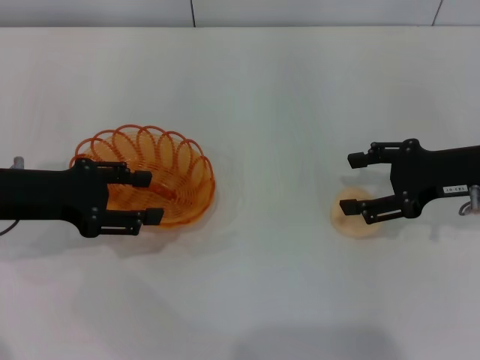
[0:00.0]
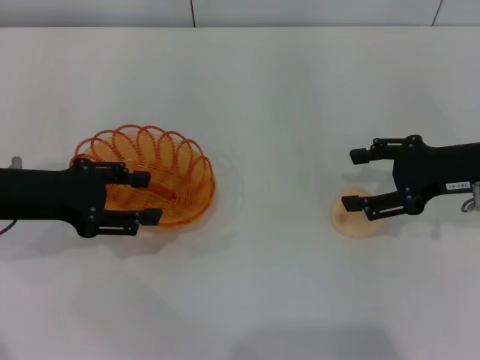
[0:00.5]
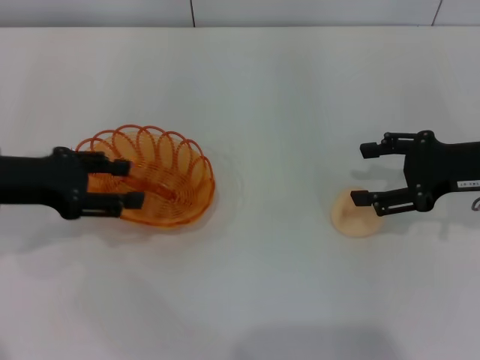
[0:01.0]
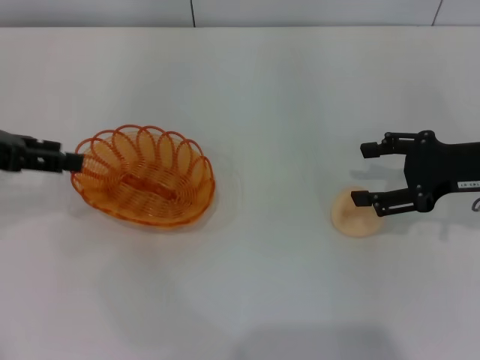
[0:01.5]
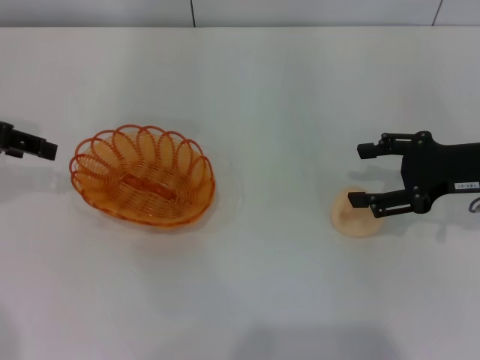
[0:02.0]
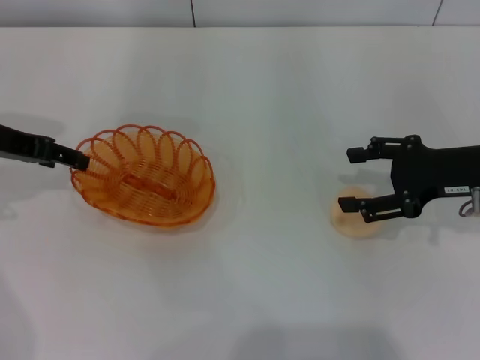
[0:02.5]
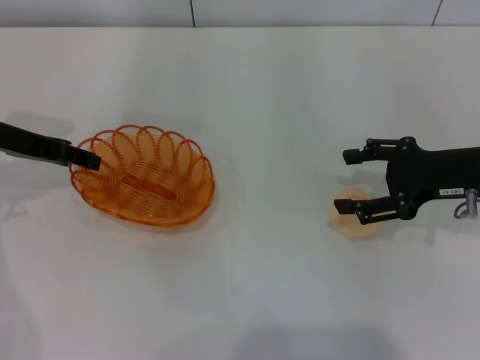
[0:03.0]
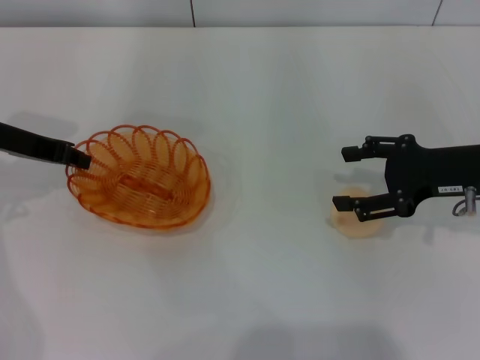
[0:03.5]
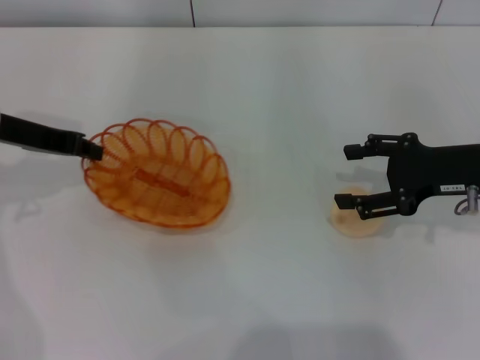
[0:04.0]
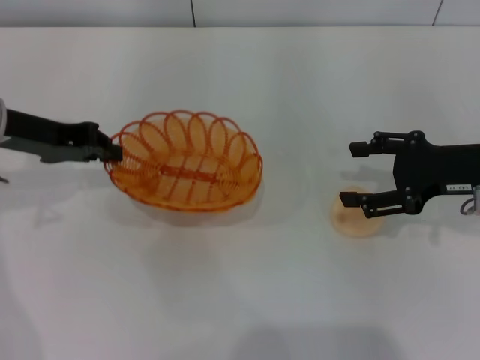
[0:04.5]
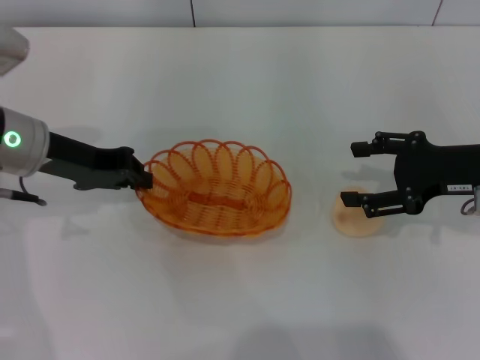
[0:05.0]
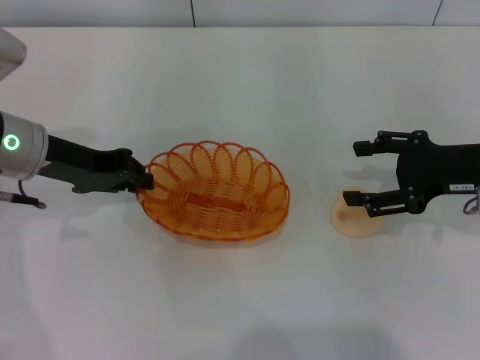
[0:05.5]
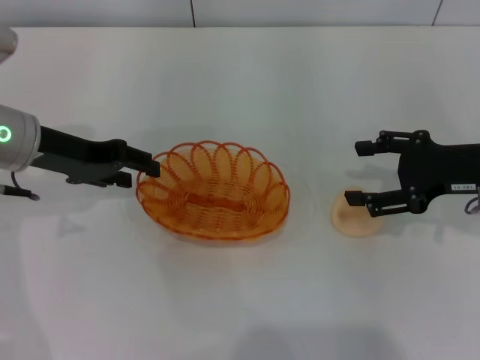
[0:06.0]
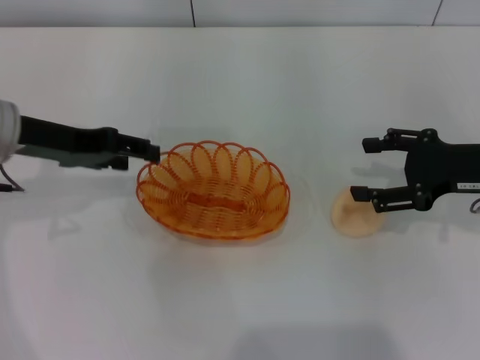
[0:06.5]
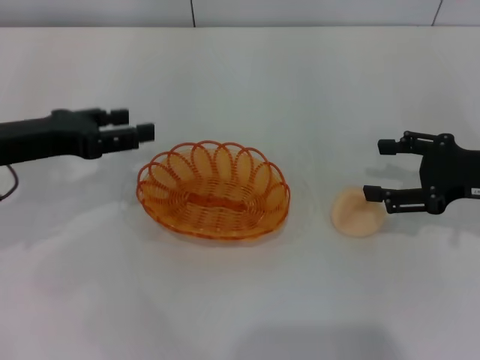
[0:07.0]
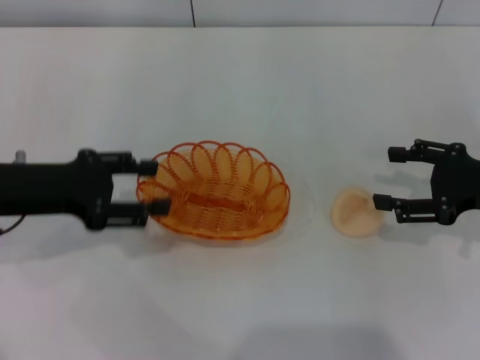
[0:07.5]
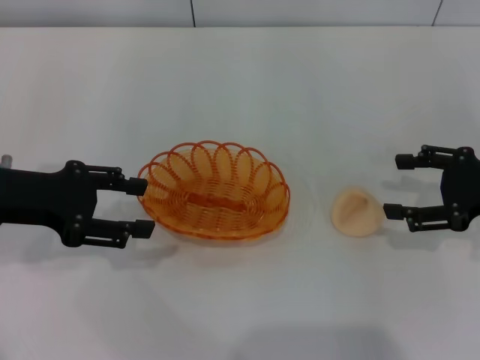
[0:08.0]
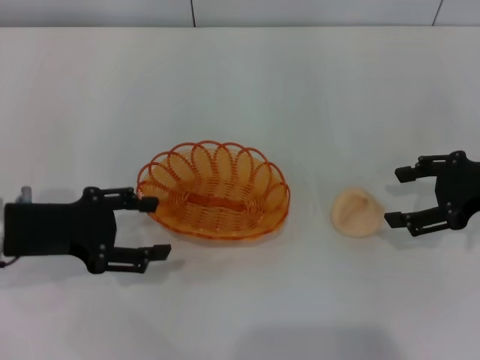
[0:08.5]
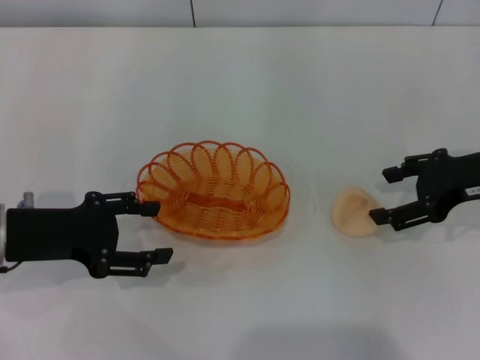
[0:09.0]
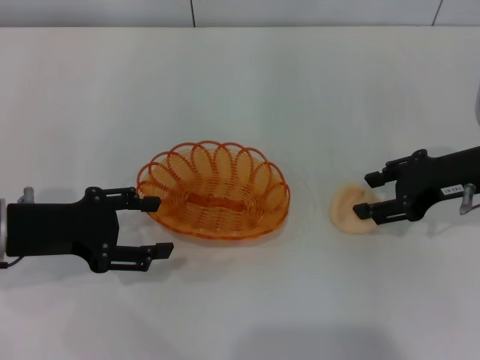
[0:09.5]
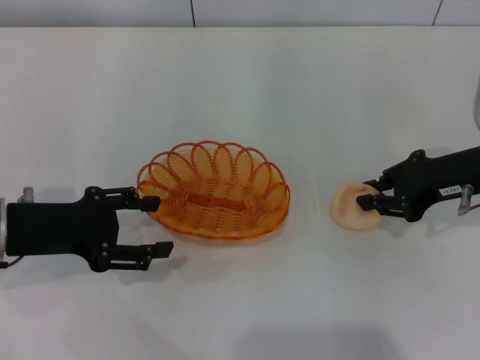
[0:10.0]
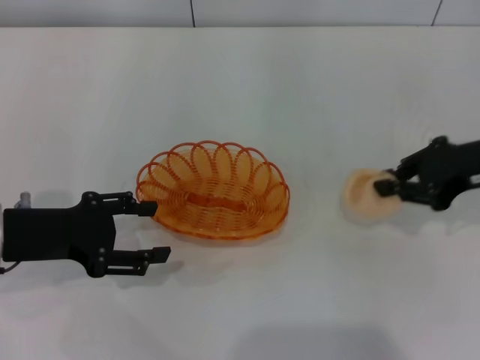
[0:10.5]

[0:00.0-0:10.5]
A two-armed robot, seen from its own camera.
Step, 0:00.0 to 0:04.0: Pick up the basket with the left gripper.
Step, 0:04.5 to 0:06.0: Place the basket in the center of view with the left gripper.
0:00.0 to 0:02.0: The left gripper is displaced upward by roughly 10 cm.
0:02.0 to 0:04.0: The left gripper goes approximately 5 cm to the right, and closes its fingers.
0:04.0 to 0:06.5: The left gripper opens its fingers.
0:06.5 to 0:08.5: The left gripper goes some 10 cm backward and downward.
0:08.5 to 0:10.5: The right gripper closes its fingers.

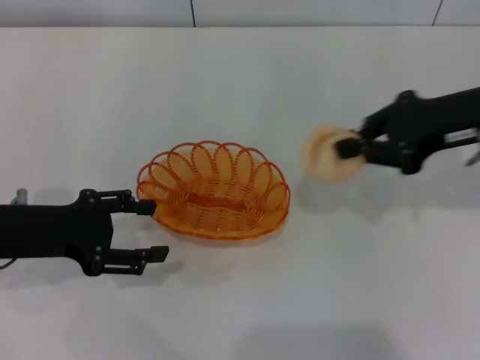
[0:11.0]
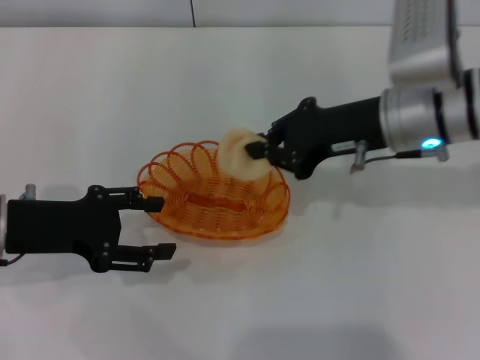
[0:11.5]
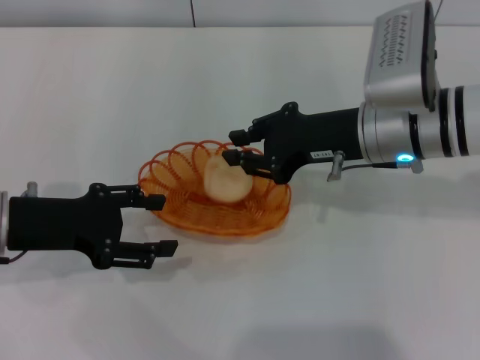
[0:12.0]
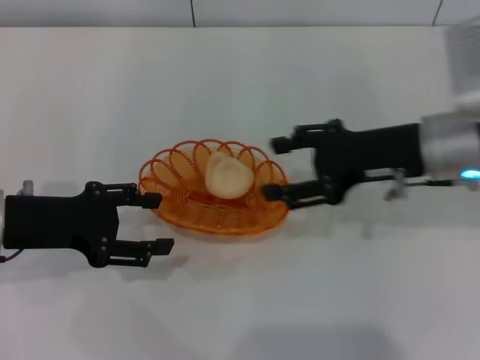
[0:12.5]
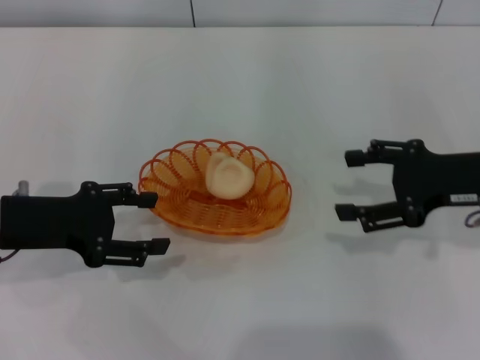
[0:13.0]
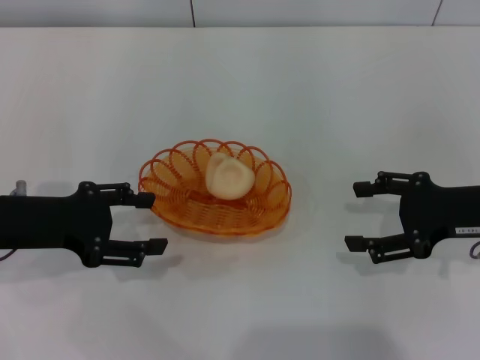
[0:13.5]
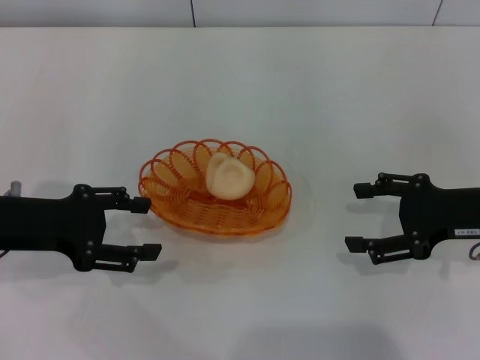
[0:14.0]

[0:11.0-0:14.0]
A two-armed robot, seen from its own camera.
Step, 0:11.0 to 0:12.5: Place the egg yolk pastry into the basket with the right gripper.
0:11.0 to 0:12.5: The right gripper heads to the left, covering approximately 5 cm, and opens.
0:12.5 to 0:14.0: The right gripper travels to the right by approximately 10 cm, and opens its fingers.

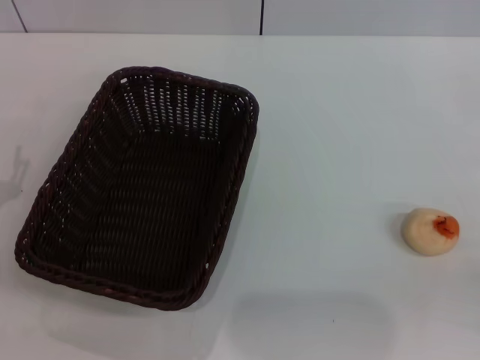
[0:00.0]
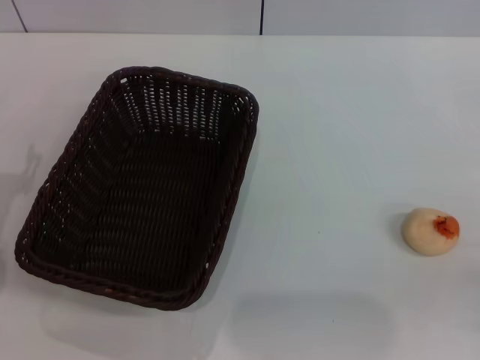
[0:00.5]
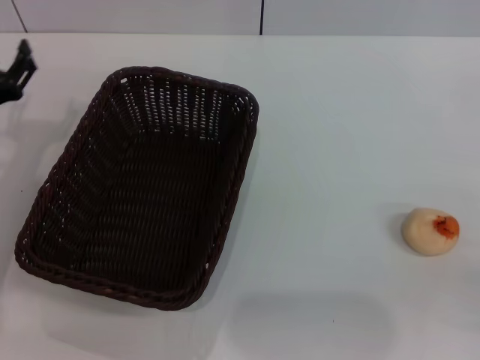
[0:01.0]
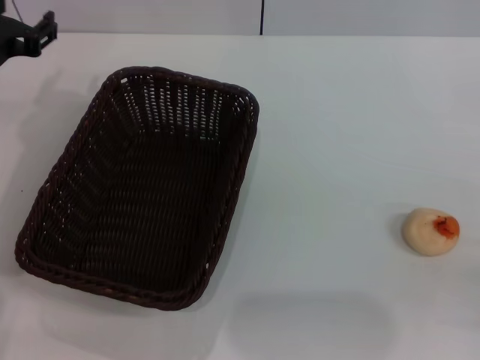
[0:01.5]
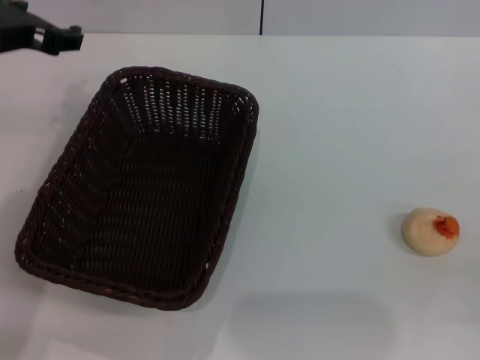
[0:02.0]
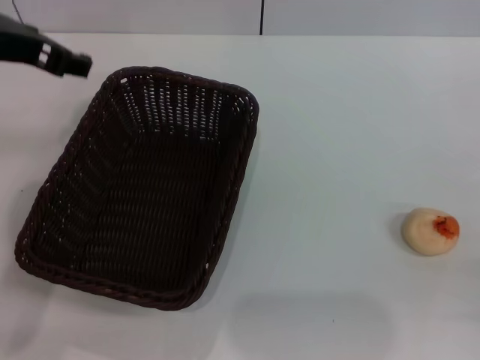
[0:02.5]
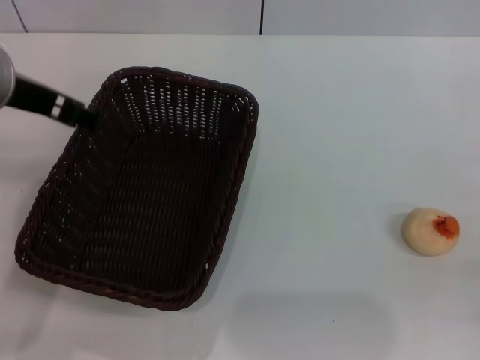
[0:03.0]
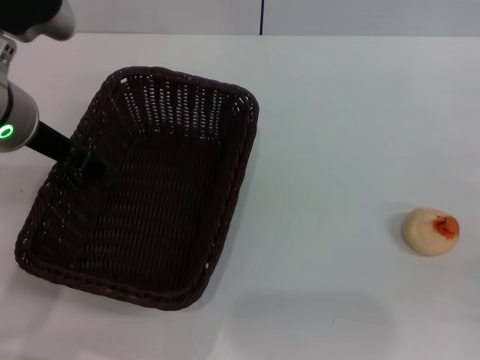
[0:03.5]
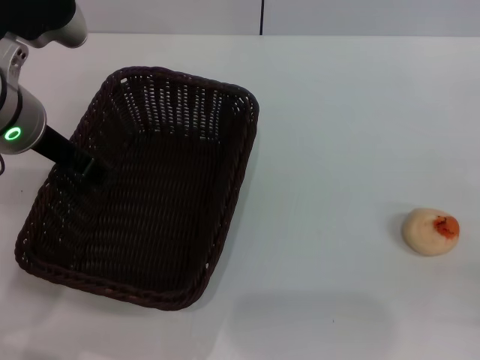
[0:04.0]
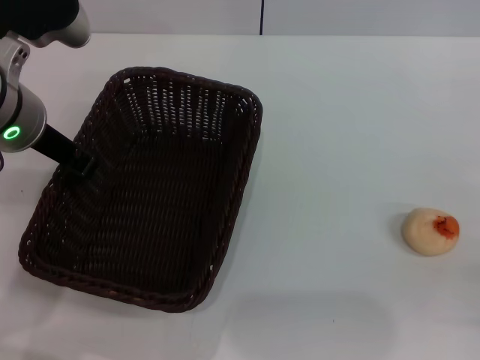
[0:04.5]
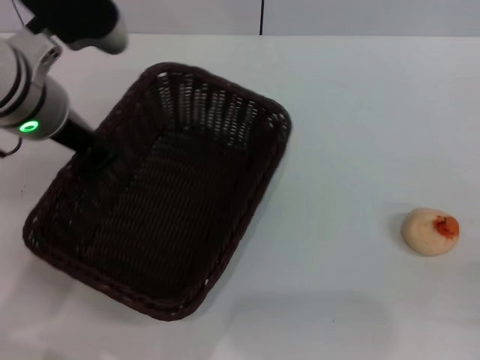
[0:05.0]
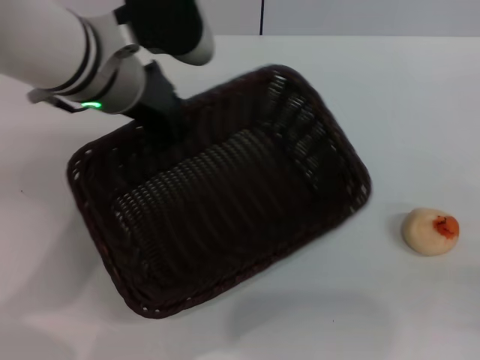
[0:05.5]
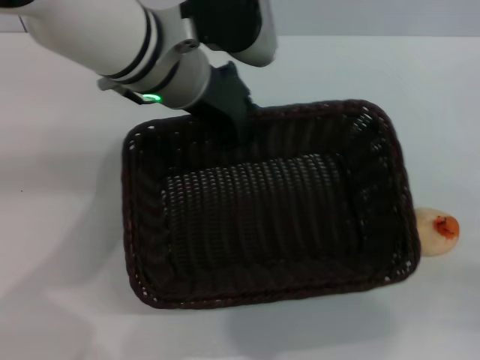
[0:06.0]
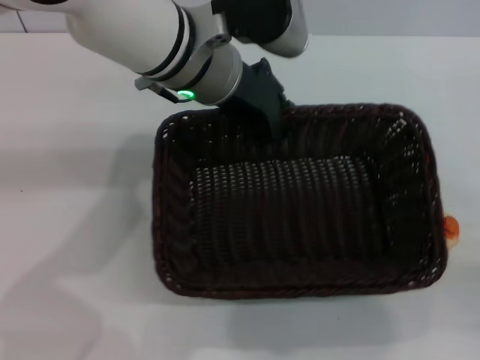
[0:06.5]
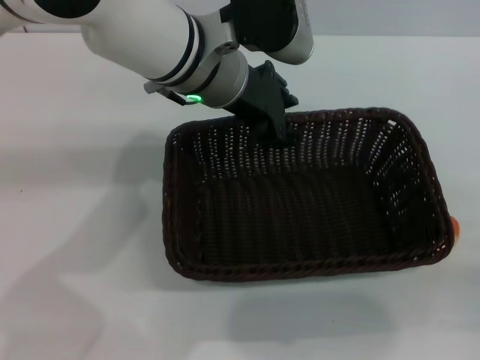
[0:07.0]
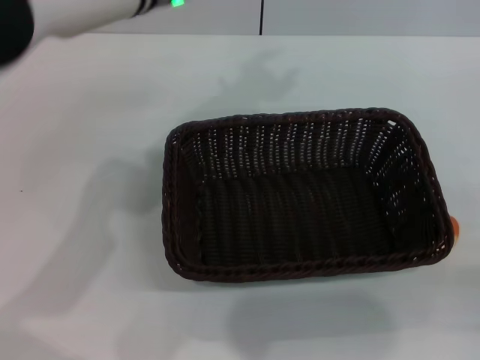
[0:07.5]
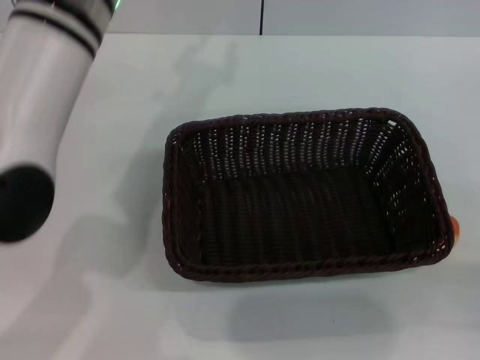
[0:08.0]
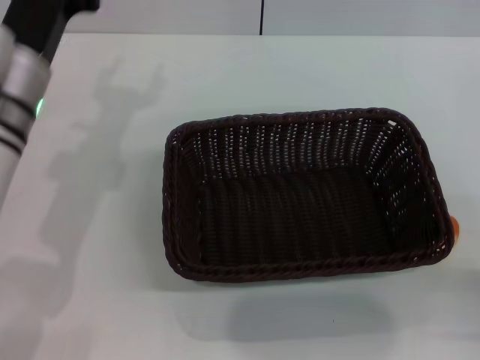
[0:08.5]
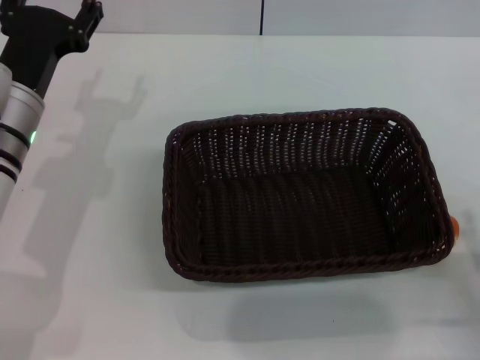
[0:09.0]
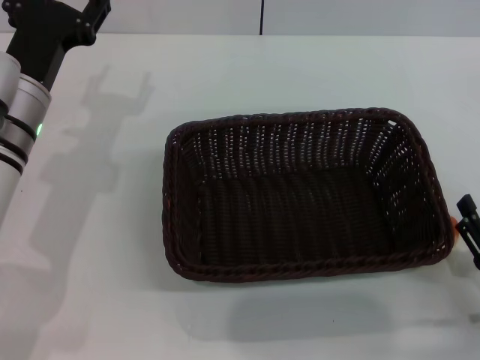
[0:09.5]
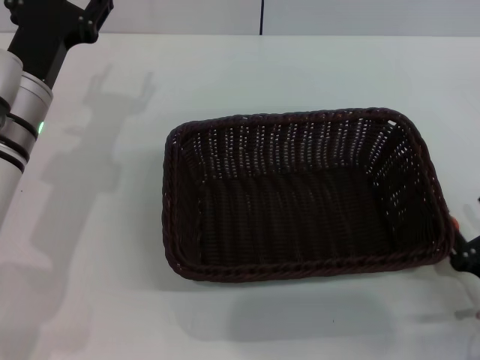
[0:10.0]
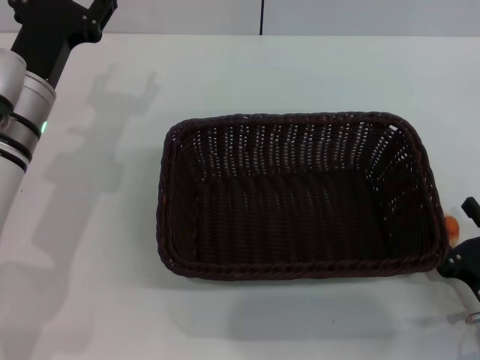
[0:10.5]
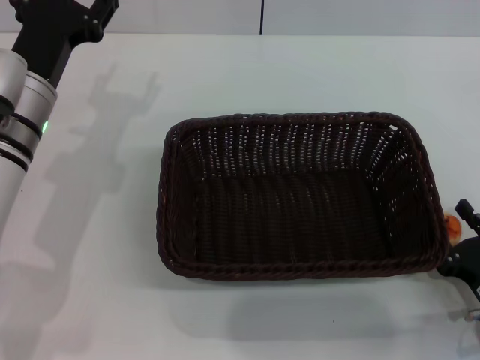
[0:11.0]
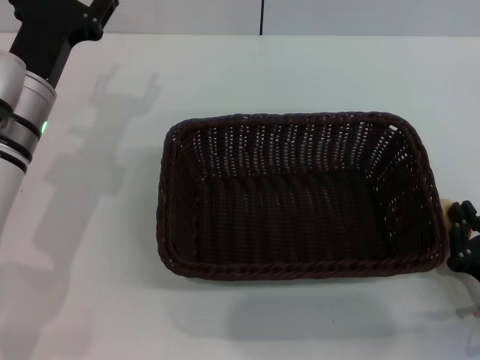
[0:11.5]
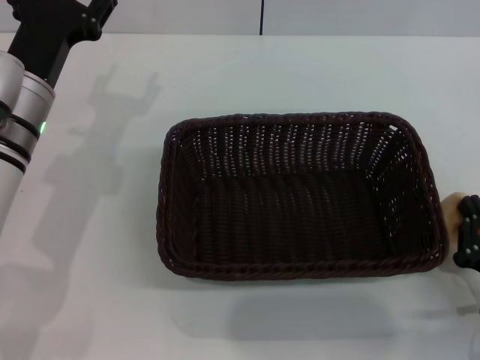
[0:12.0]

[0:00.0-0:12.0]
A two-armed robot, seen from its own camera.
Step, 0:00.0 to 0:07.0: Move the basket to the center of view with the left gripper.
0:00.0 to 0:02.0: The left gripper travels upward, forward and to the right by some 25 cm.
0:04.0 to 0:06.0: The left gripper is displaced to the right by approximately 10 cm, and closes.
0:06.0 to 0:08.0: The left gripper changes place by about 5 cm, and opens up.
0:08.0 to 0:10.0: The right gripper shifts some 5 cm to the left; the left gripper goes some 15 cm downward and to the left.
0:10.0 to 0:12.0: The right gripper closes its fingers.
